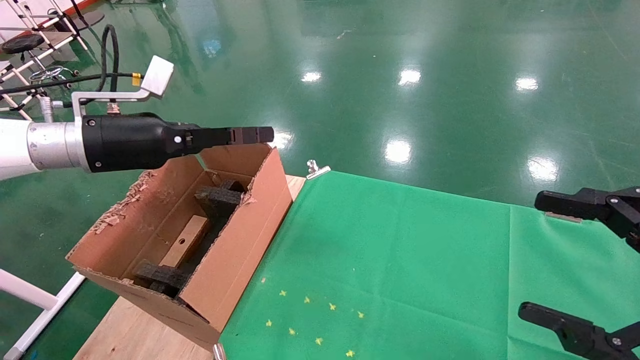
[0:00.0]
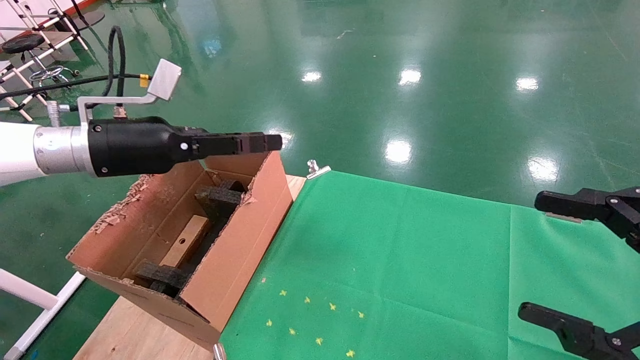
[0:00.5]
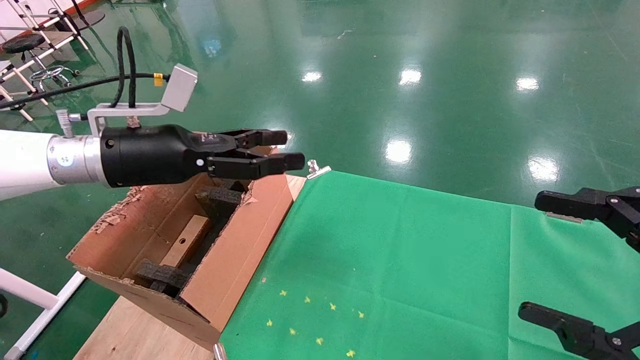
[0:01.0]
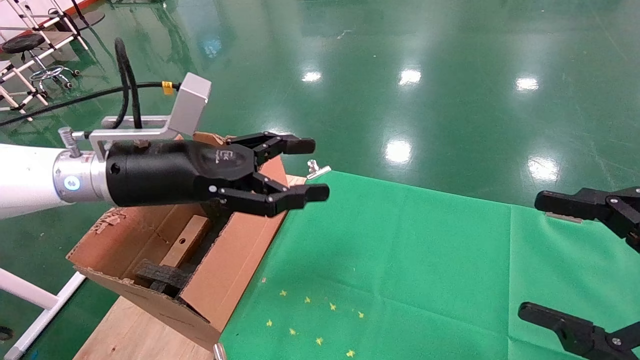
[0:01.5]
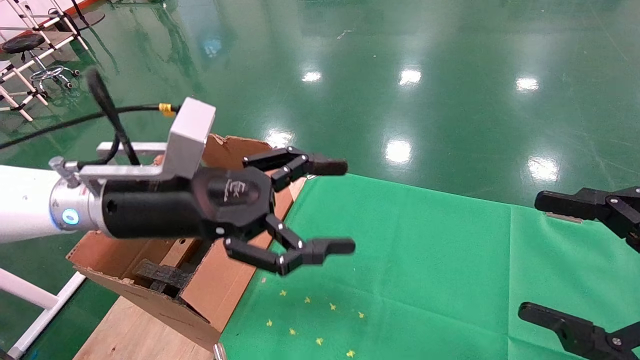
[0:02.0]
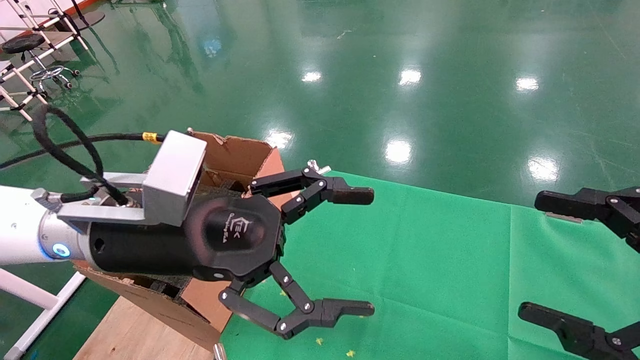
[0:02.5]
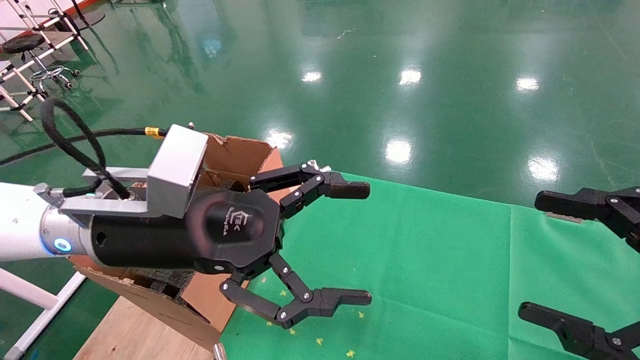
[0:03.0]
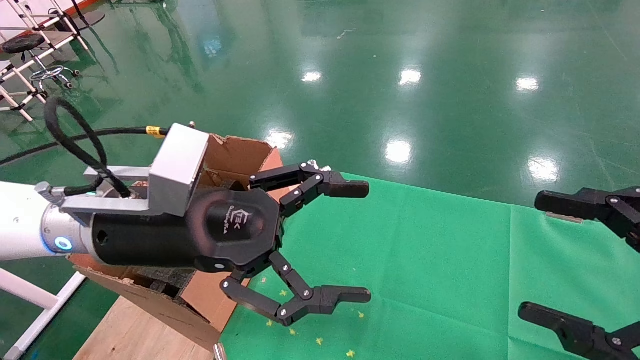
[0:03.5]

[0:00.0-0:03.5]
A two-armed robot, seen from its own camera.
Task of the whole recording: using a robotic arm to pick up a cardboard box and palace it the carton.
0:00.0 to 0:02.0: The left gripper goes roughly 15 cm to the right and backward.
0:02.0 to 0:03.5: The grippers move only a little.

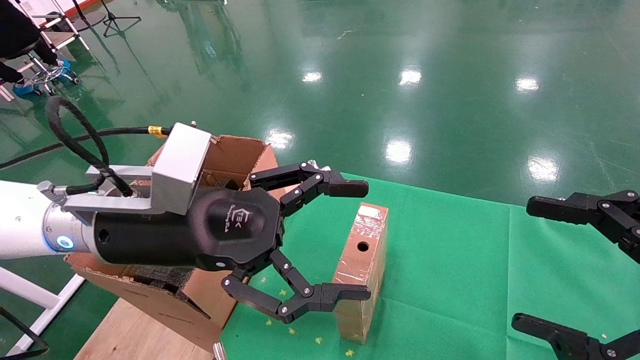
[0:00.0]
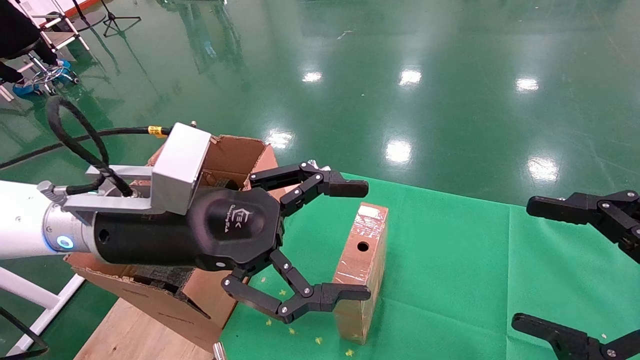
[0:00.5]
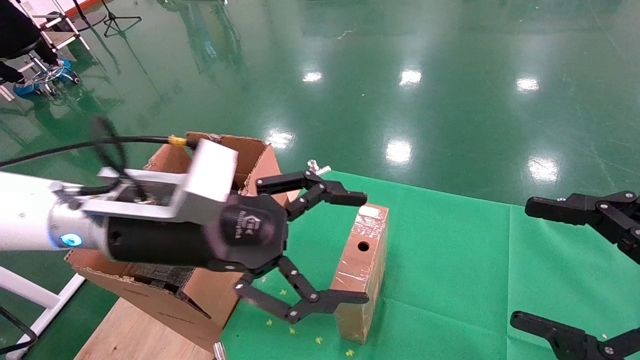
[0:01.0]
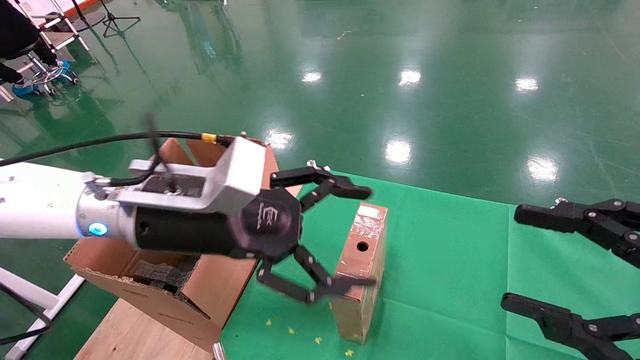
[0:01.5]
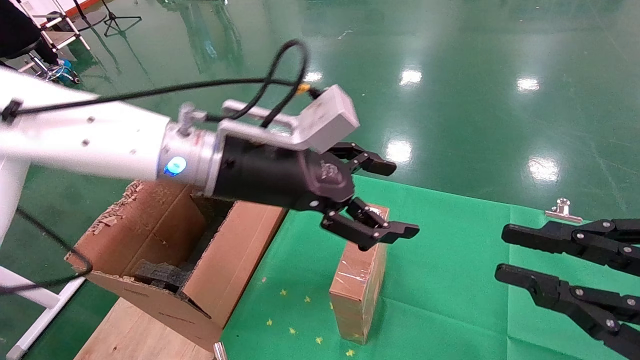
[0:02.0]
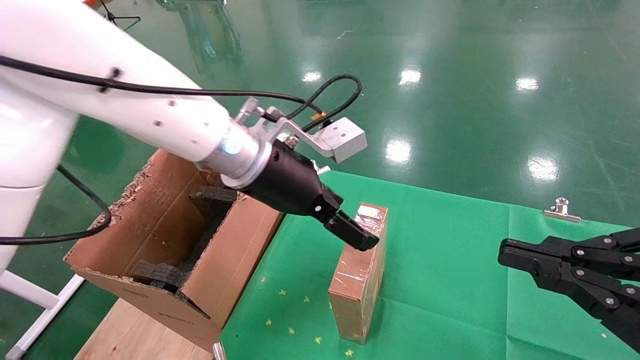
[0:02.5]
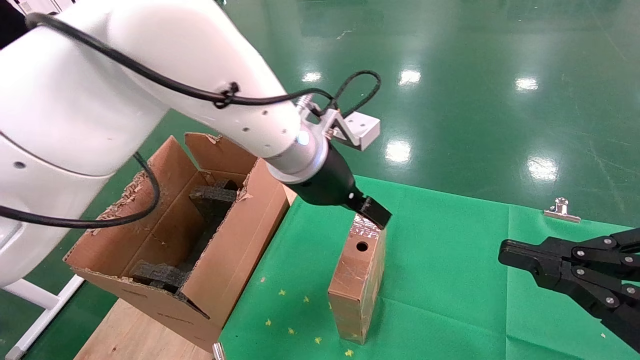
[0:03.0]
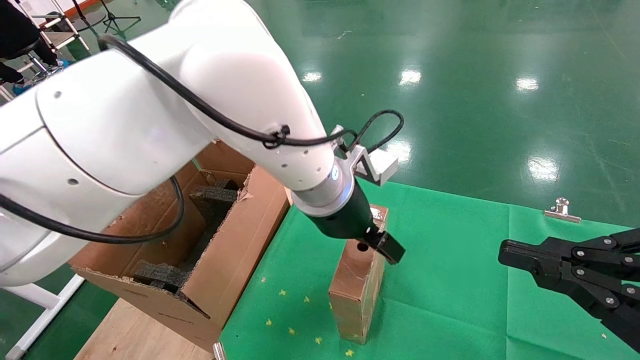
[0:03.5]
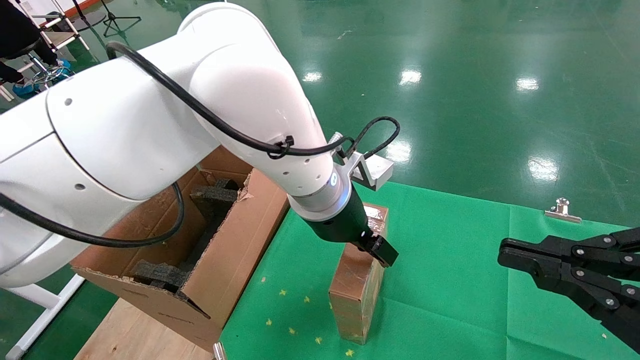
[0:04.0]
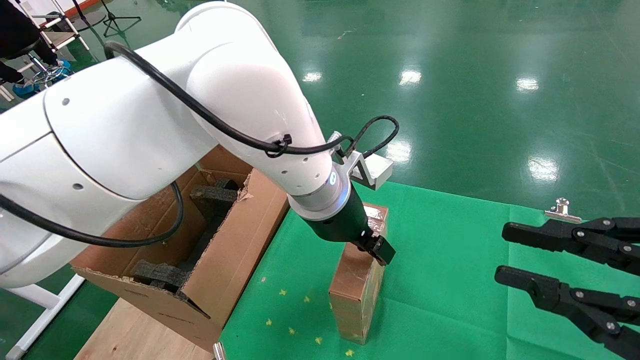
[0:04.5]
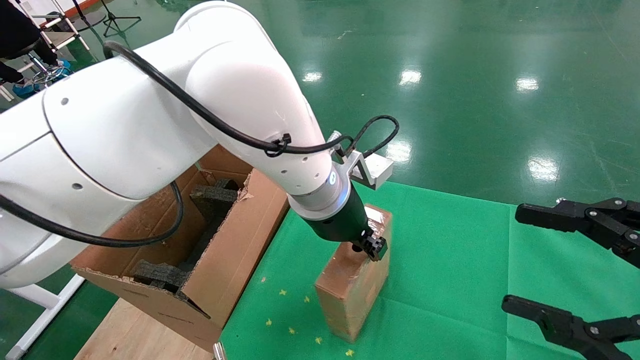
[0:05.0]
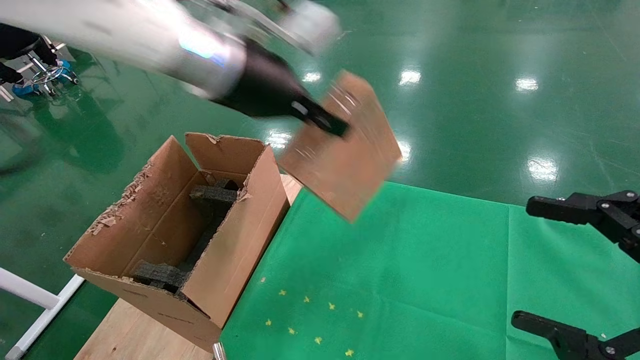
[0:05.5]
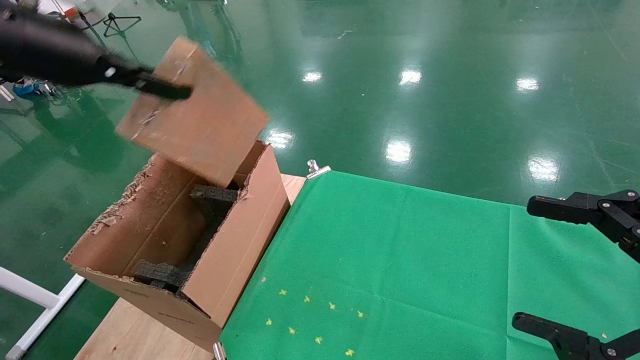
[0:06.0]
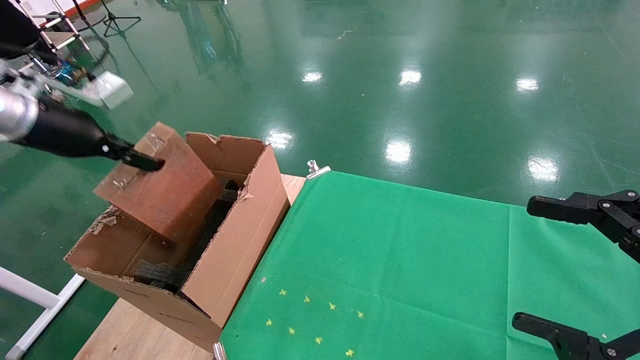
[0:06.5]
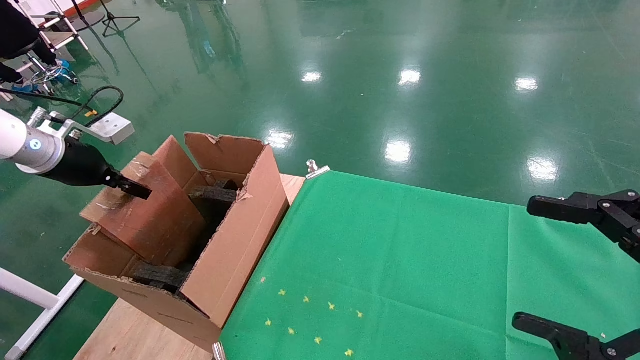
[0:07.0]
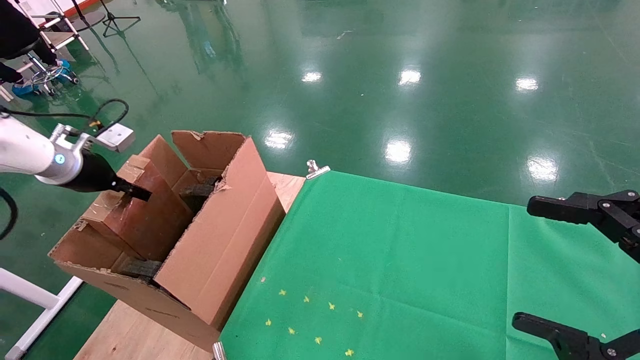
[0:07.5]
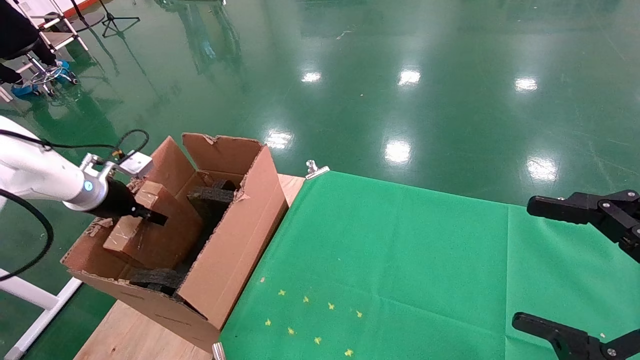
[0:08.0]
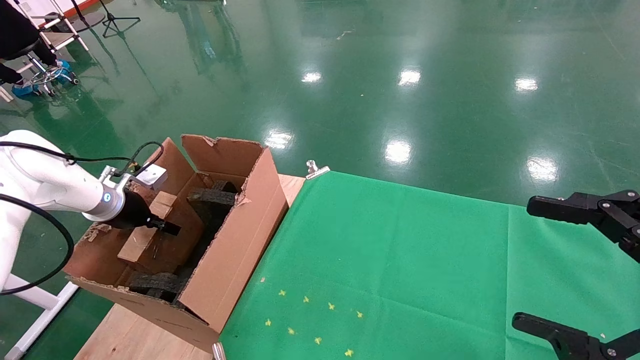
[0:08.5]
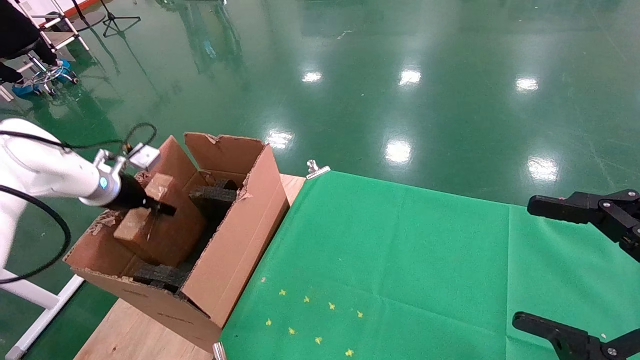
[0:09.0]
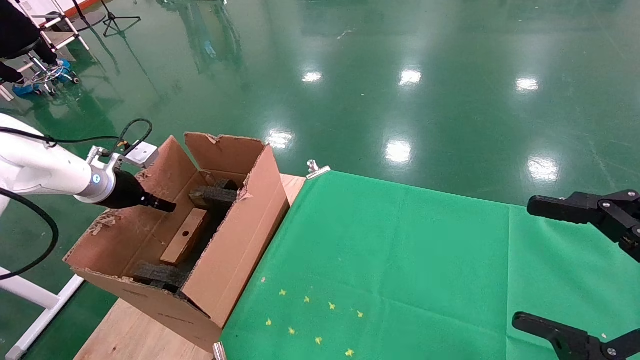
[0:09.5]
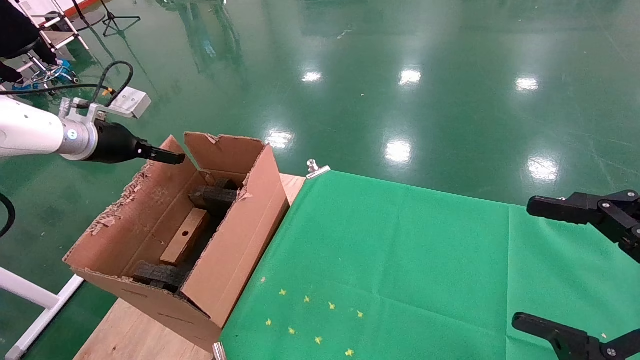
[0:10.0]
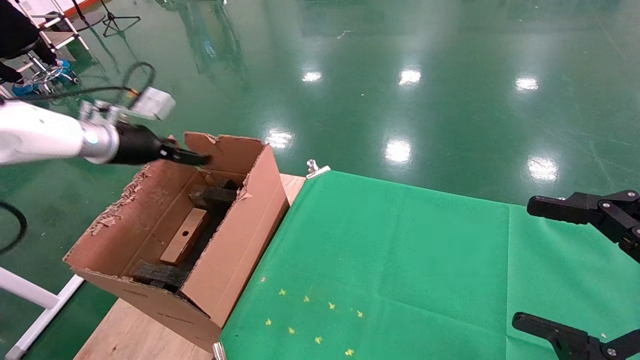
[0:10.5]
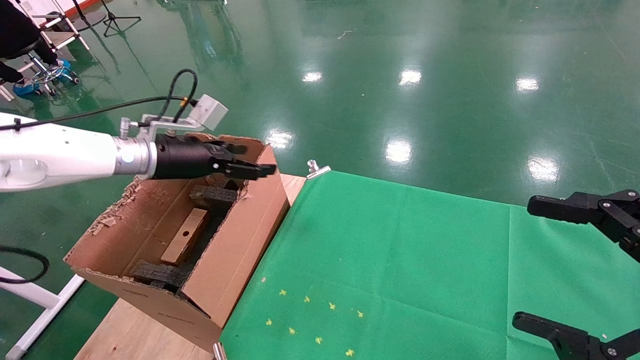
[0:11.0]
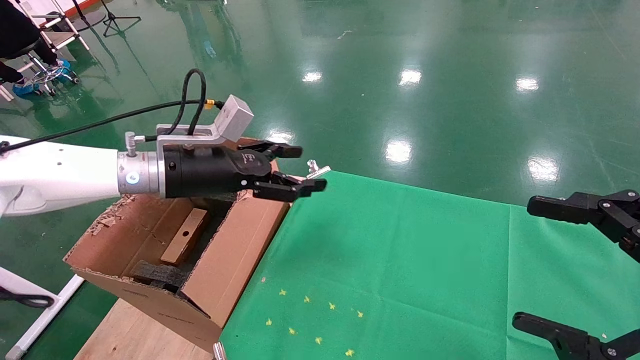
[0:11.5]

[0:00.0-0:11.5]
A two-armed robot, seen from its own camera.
Task of the whole recording: using a robotic arm to pick up a cardboard box and palace it the carton.
Step, 0:01.5 to 0:05.0: Pick up the mouse and the power cord paper box.
Step, 0:05.5 to 0:09.0: Place the mouse and the power cord paper box into the container.
0:00.0 to 0:02.0: The right gripper closes up, while the left gripper heads forward and to the right, covering approximately 10 cm.
0:02.0 to 0:04.0: The left gripper travels to the right and forward by about 10 cm.
0:04.0 to 0:06.0: The right gripper opens. The left gripper heads to the left and upward, covering about 35 cm, and closes.
0:06.0 to 0:07.5: The left gripper moves downward, to the left and forward, approximately 25 cm.
0:07.5 to 0:09.5: The left gripper travels downward and back again, roughly 10 cm each way, and opens its fingers.
0:09.5 to 0:11.5: The left gripper goes some 20 cm to the right, and opens up.

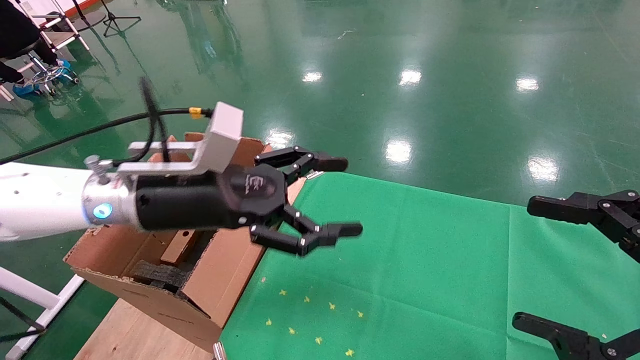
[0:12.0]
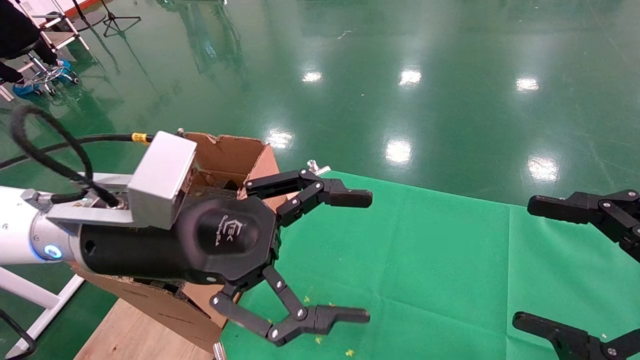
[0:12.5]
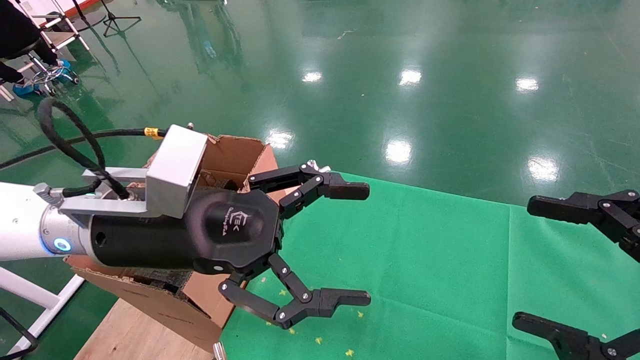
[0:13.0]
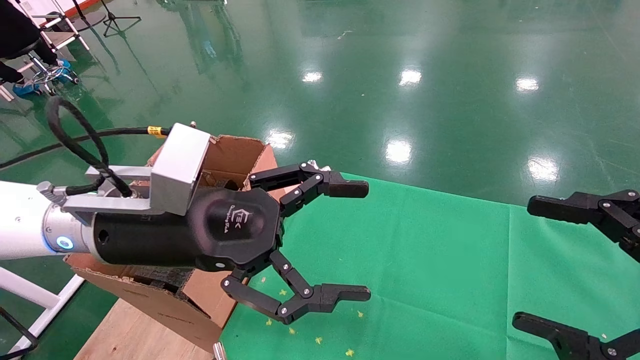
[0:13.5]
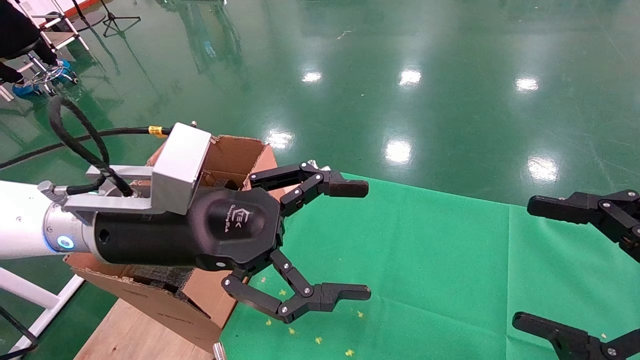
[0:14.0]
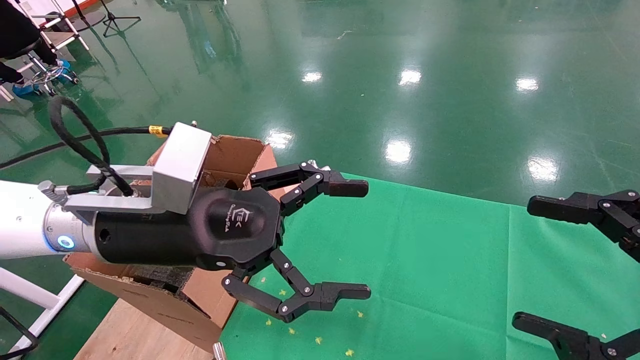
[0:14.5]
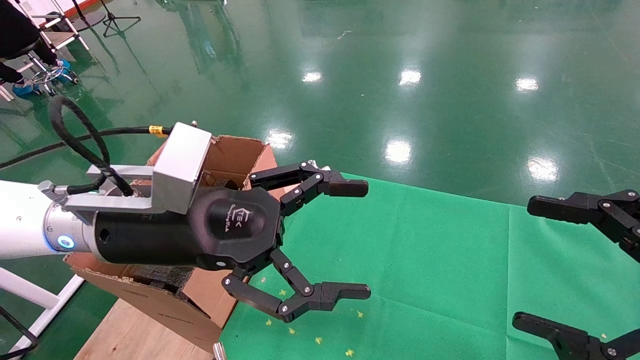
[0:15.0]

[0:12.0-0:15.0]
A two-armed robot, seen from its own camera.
Task of the whole recording: using a robotic arm to pick up a cardboard box and palace it the carton.
0:12.0 to 0:13.5: The left gripper moves some 5 cm.
0:13.5 to 0:15.0: Both grippers stay about where they are.
